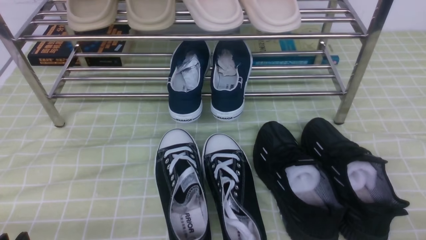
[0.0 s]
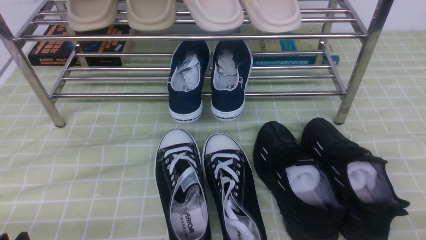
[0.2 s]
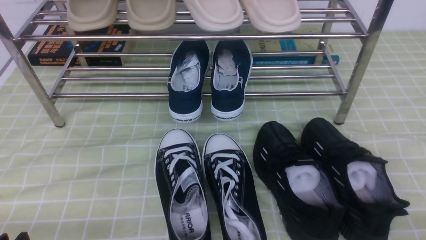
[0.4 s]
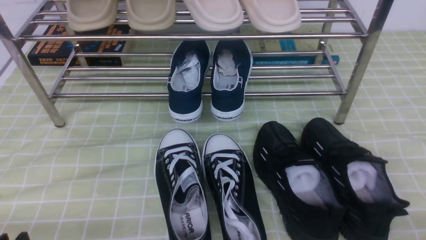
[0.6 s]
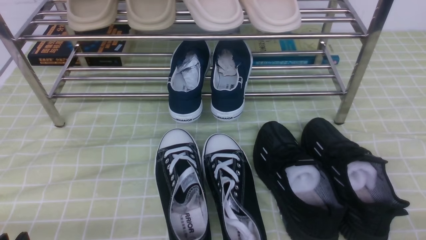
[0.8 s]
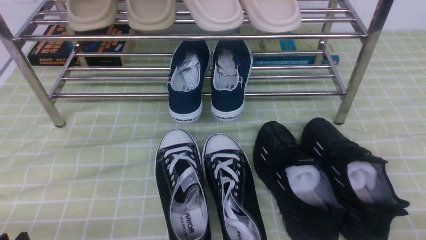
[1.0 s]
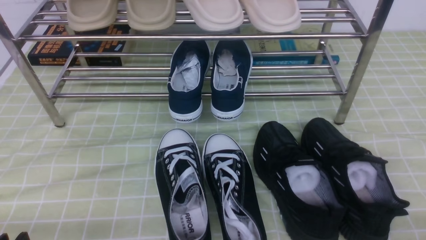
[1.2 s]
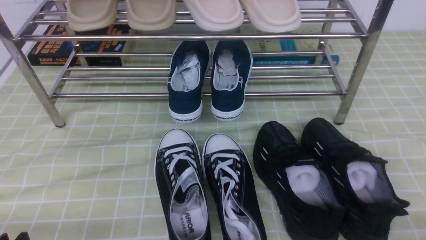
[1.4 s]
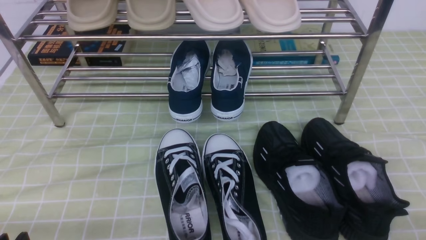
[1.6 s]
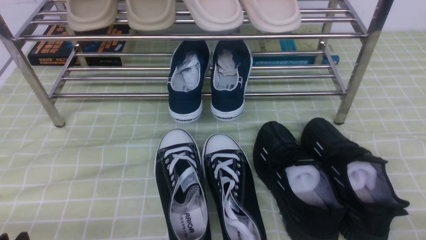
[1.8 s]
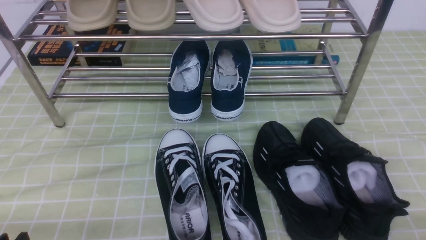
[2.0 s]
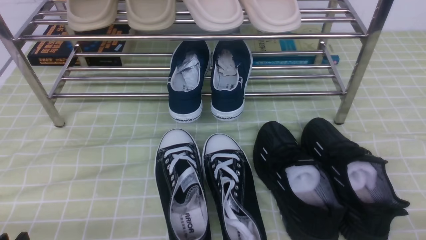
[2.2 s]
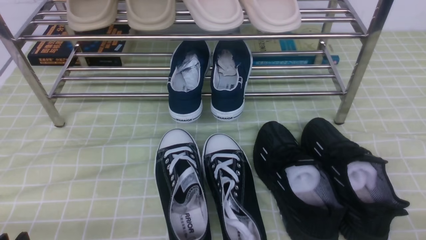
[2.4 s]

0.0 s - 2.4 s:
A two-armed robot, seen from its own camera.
0.0 s - 2.4 s: Both grippers stay put.
